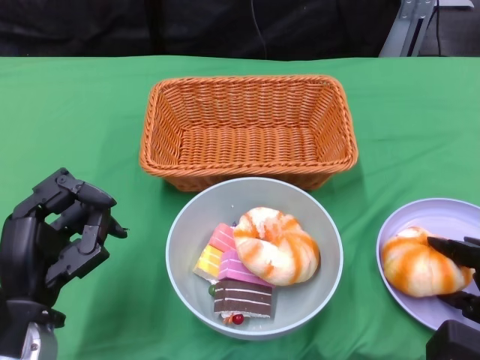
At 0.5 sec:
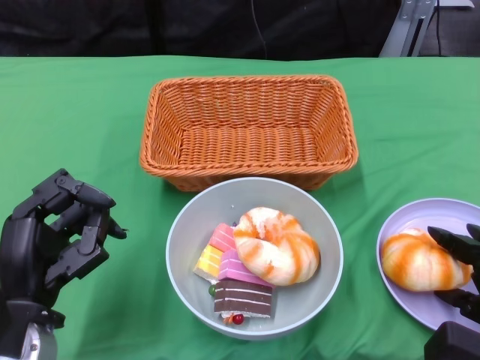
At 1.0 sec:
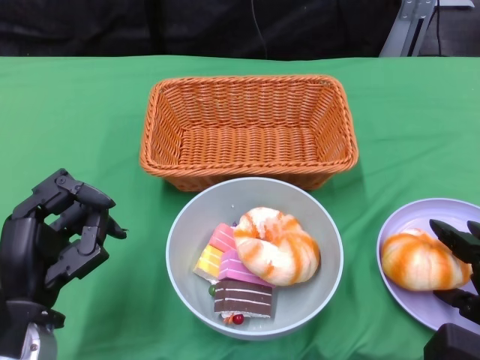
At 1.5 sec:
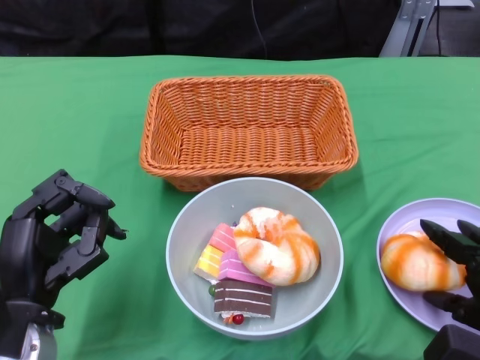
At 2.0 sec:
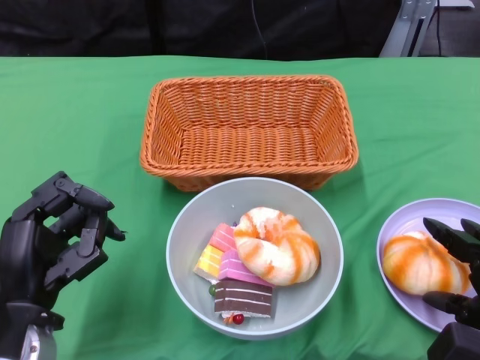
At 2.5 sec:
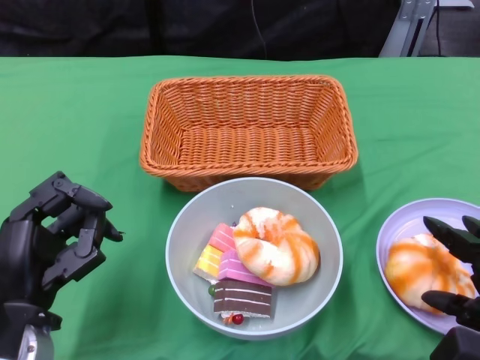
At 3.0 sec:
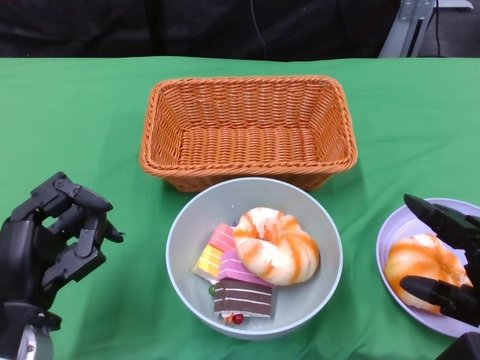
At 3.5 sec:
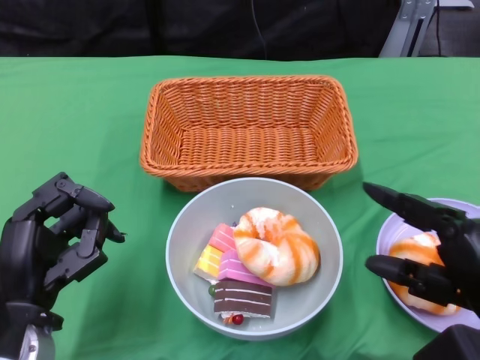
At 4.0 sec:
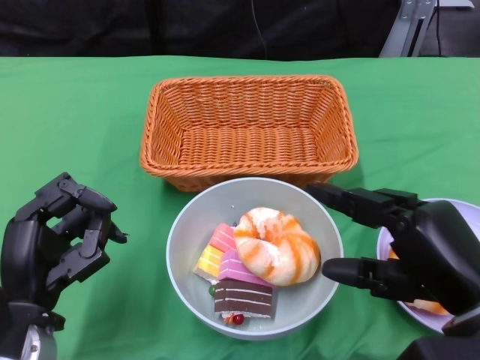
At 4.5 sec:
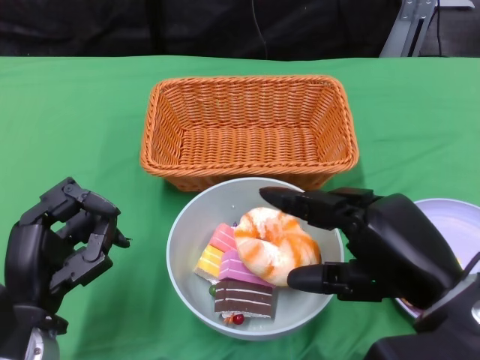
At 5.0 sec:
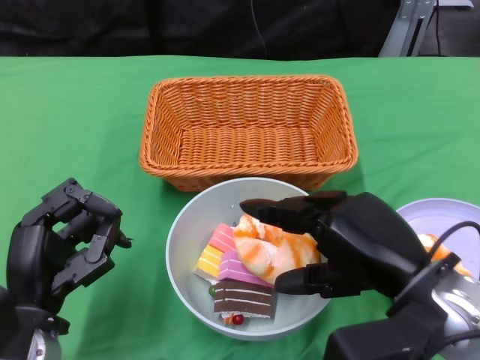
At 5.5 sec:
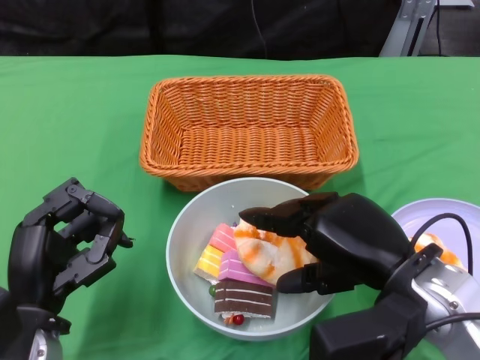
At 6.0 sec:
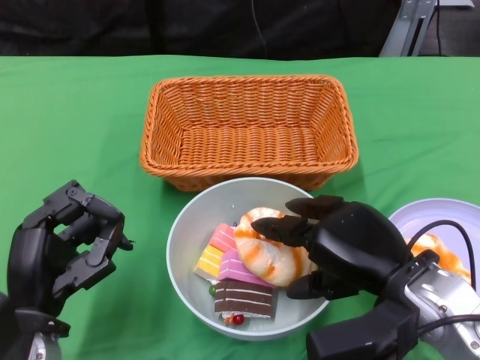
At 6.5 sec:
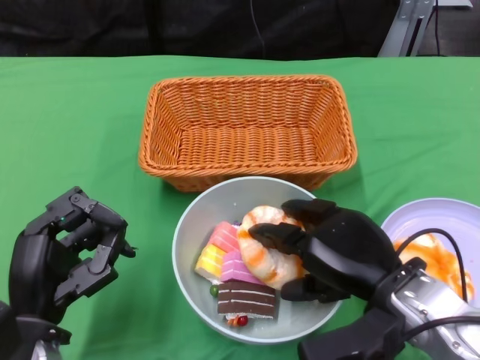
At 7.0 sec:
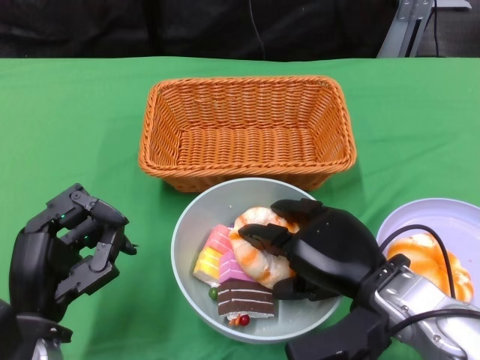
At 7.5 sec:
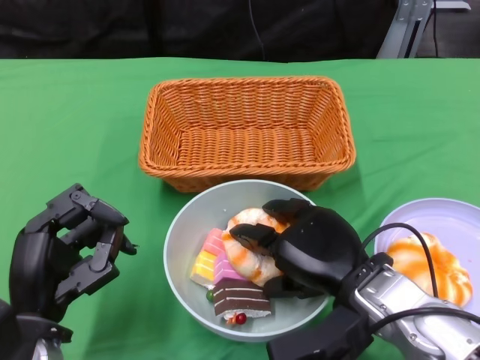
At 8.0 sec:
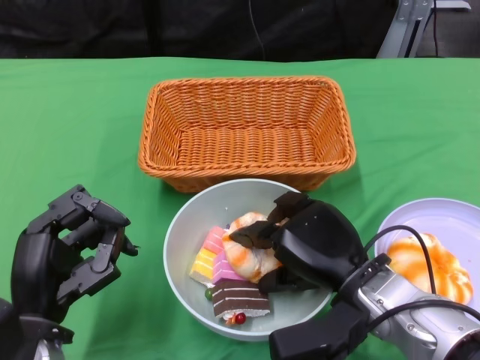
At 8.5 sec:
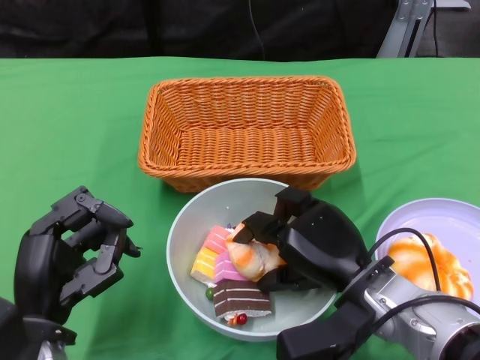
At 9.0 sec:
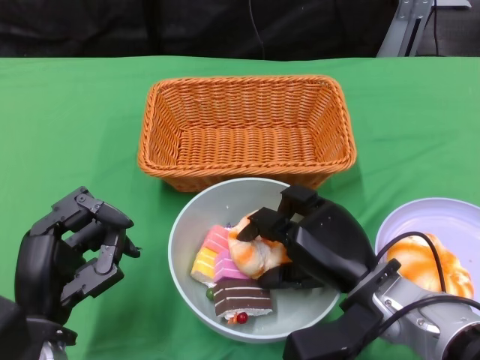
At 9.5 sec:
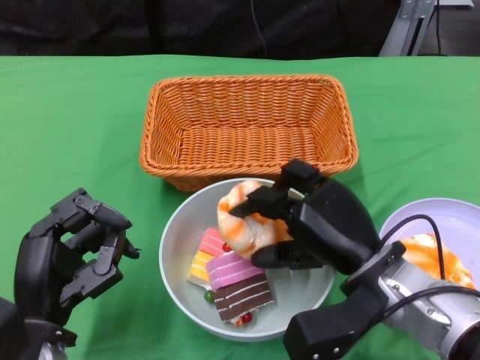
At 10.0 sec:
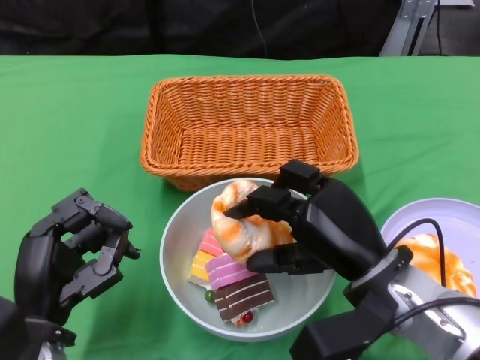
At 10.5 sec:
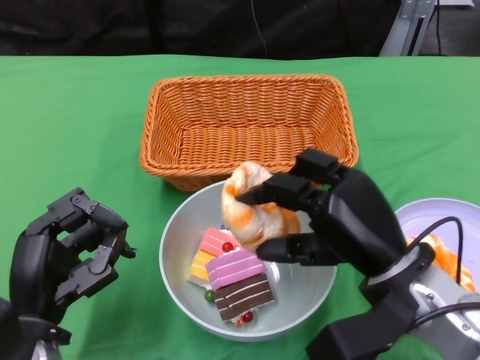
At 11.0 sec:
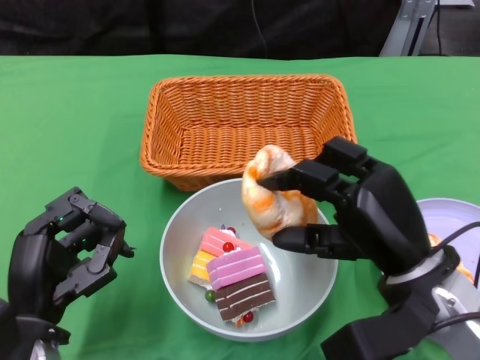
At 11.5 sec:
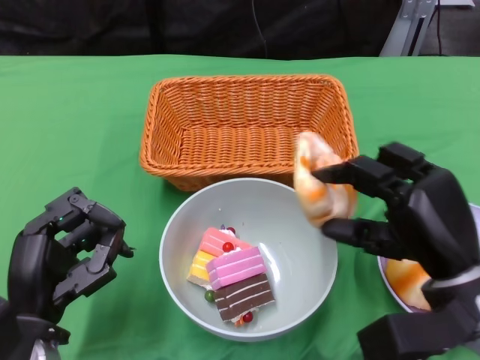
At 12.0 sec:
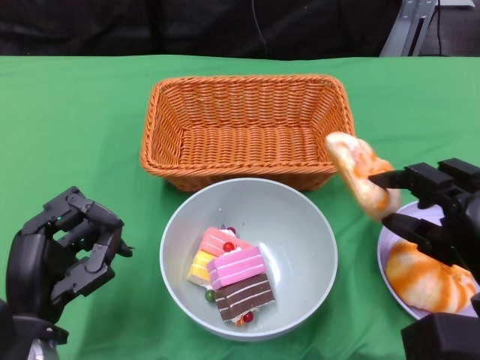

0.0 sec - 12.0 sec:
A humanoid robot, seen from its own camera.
0.0 sec - 2.0 sec: The hands stay close to where they were, moving slightly.
2.0 sec - 4.0 sec: The right hand heads upward and to the left, covering roughly 10 cm.
4.0 sec - 6.0 sec: The right hand ends up approximately 5 cm from where it was.
6.0 sec - 8.0 sec: The right hand ends up roughly 5 cm from where it was.
10.0 sec - 12.0 sec: The right hand shifts about 10 cm to the right.

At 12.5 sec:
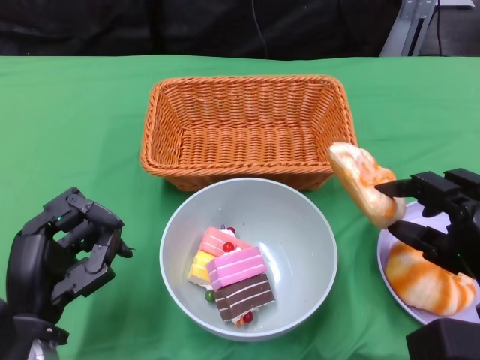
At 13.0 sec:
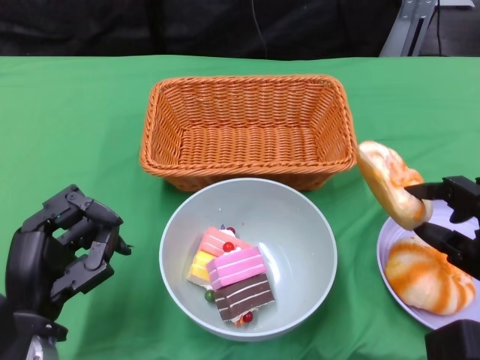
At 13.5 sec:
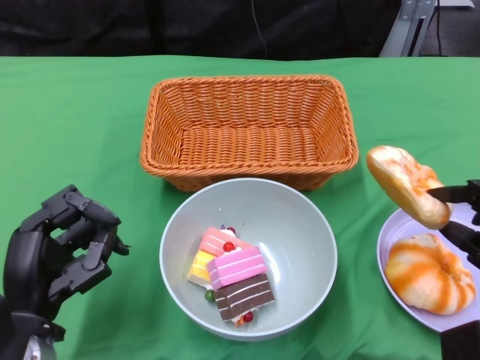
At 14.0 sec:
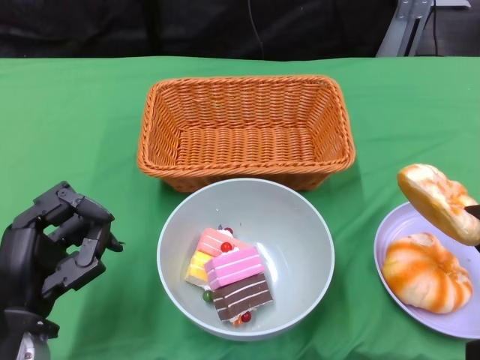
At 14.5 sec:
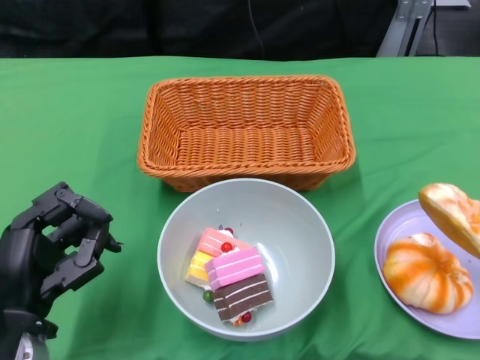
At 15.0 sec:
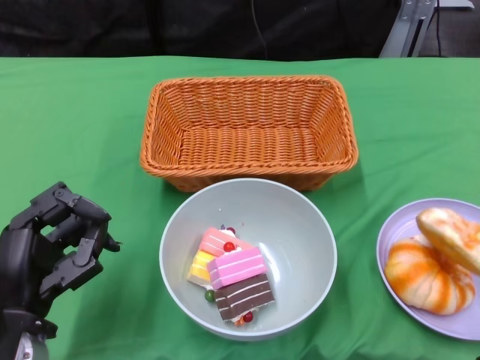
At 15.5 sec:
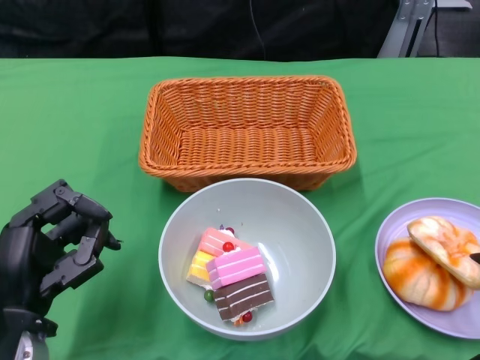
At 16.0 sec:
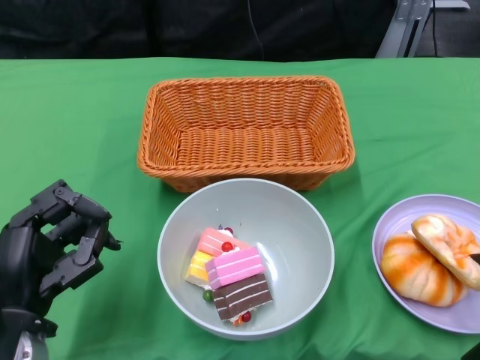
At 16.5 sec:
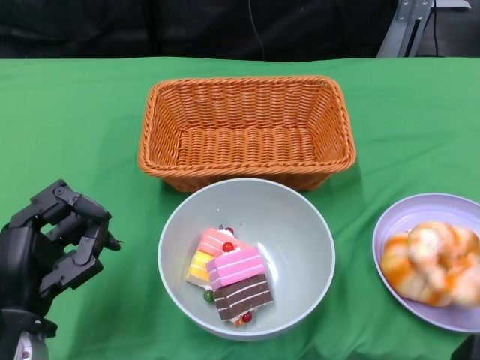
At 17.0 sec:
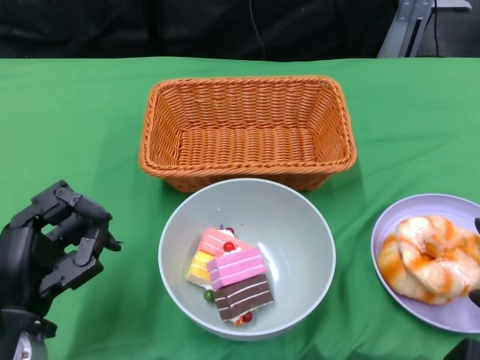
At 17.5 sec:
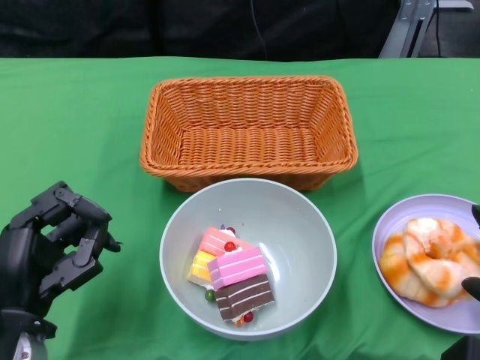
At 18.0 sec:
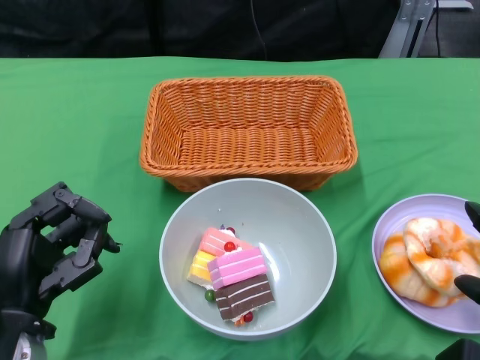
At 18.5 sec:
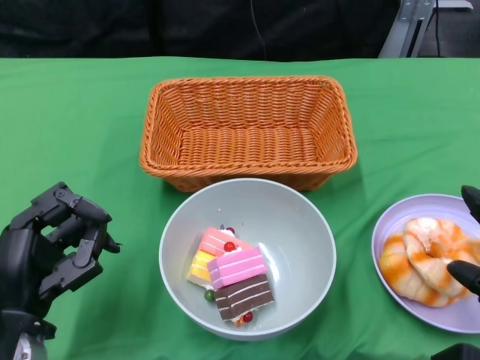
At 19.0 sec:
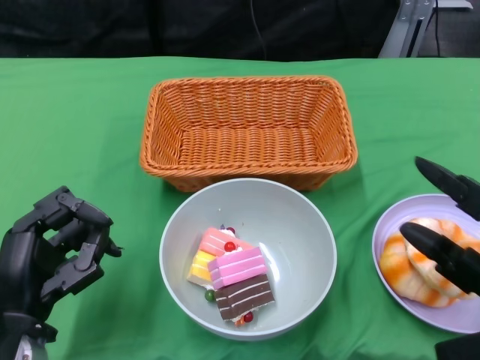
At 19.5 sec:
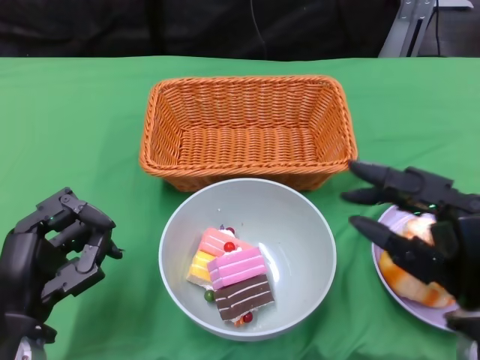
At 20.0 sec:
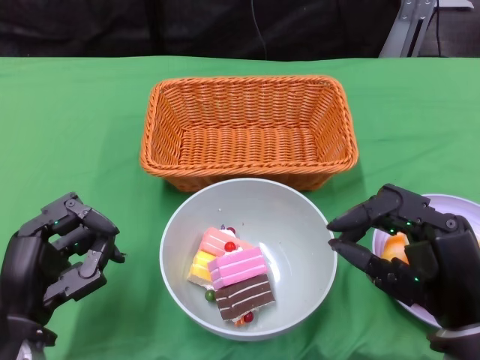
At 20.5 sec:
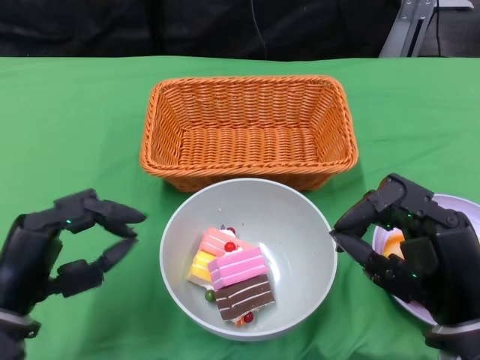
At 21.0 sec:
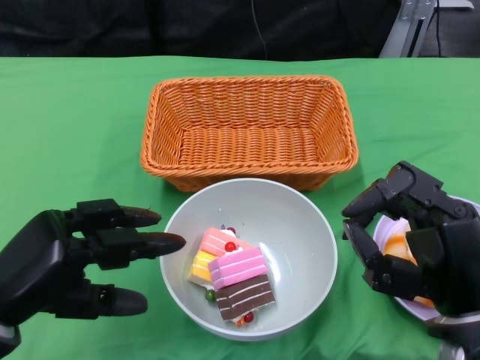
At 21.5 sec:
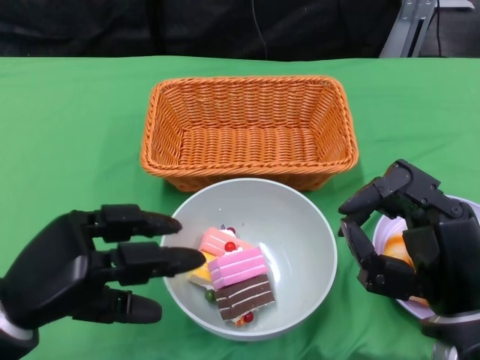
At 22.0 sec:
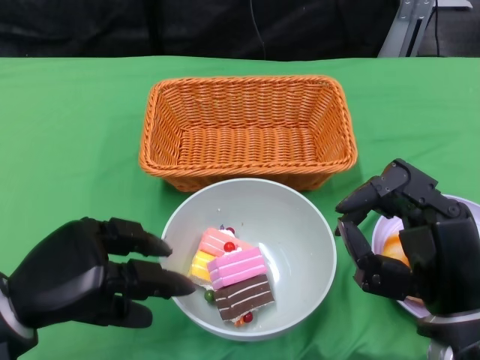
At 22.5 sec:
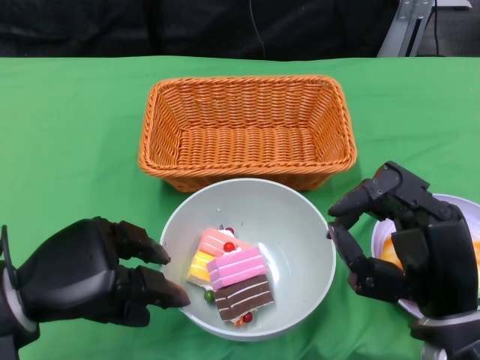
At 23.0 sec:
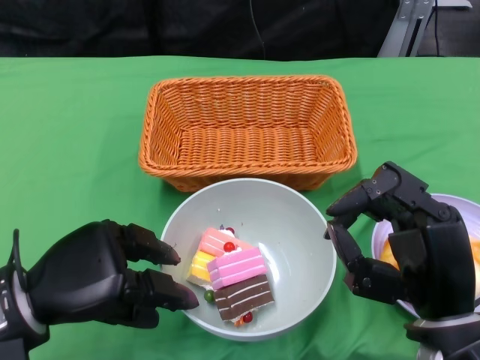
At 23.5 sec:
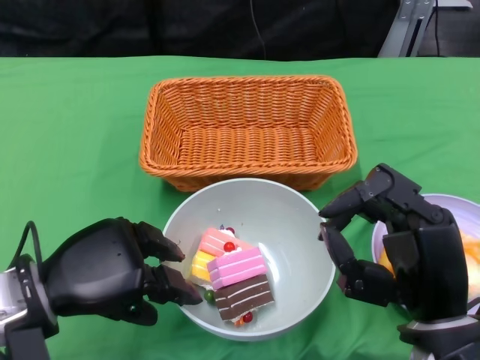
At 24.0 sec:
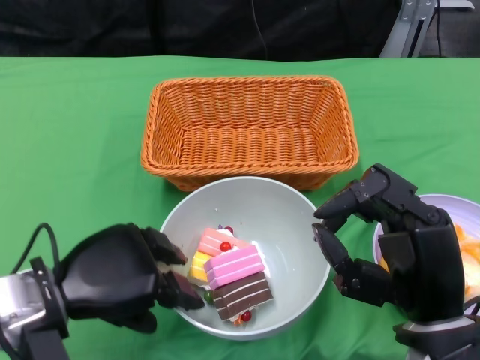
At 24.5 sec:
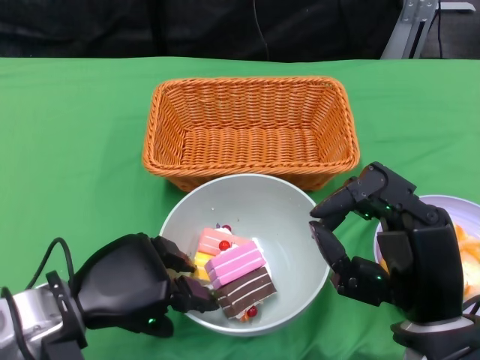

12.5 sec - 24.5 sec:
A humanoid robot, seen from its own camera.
Step, 12.5 sec - 18.0 sec: Pick up the bread with the right gripper and place it on the plate.
12.5 sec - 14.5 sec: The right hand moves to the right, some 5 cm.
16.5 sec - 18.5 sec: The hands stay close to where they were, moving slightly.
18.5 sec - 20.5 sec: The right hand goes approximately 10 cm to the left.

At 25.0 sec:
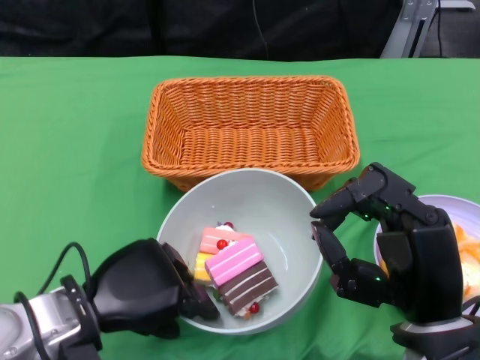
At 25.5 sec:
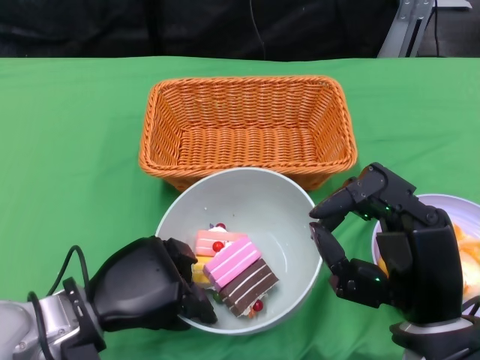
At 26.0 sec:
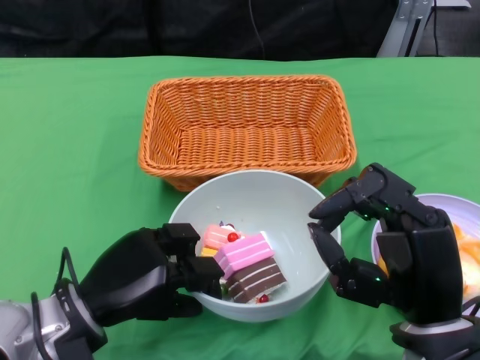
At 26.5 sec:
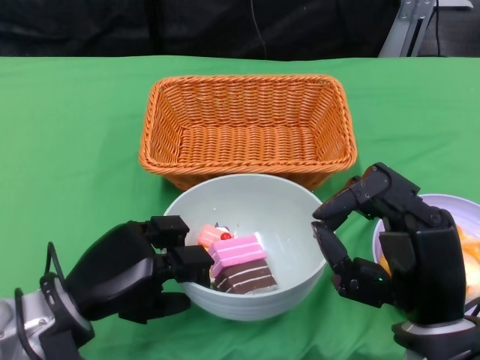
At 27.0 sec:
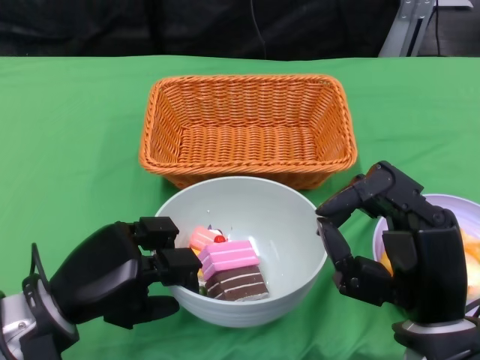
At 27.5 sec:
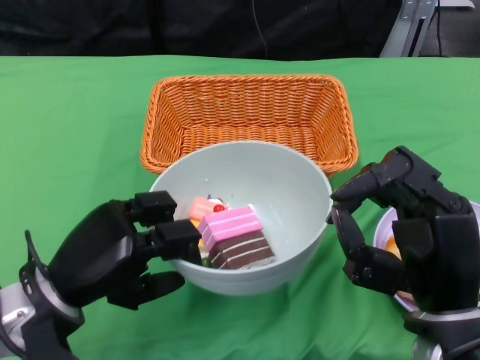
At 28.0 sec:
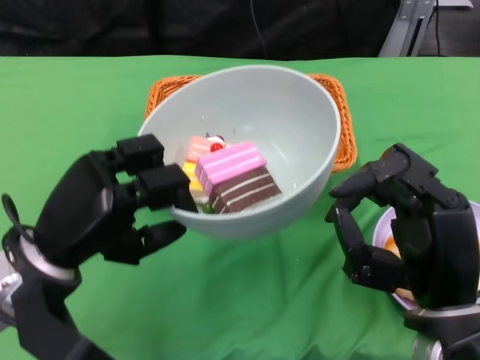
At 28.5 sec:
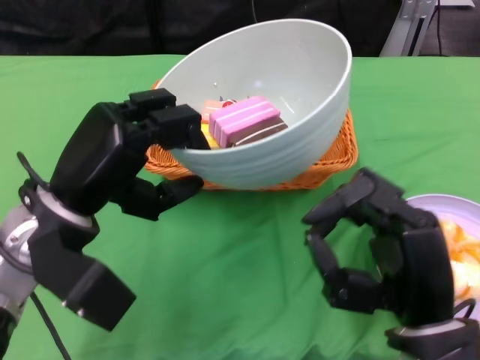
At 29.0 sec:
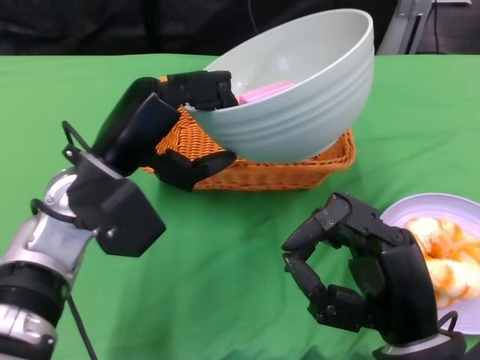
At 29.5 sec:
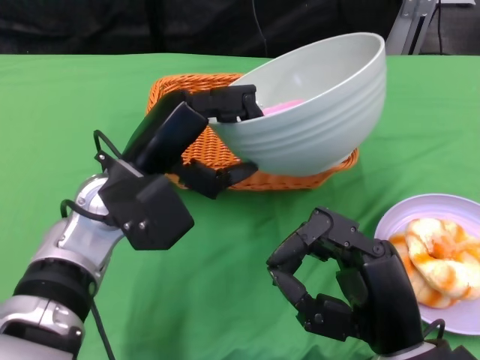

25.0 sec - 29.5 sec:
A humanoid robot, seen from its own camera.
27.0 sec - 29.5 sec: The left hand goes approximately 15 cm upward, to the right and forward.
